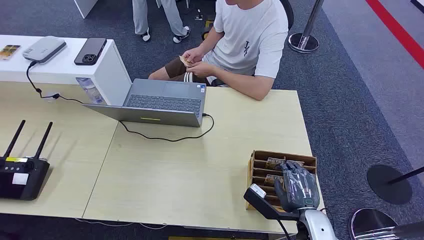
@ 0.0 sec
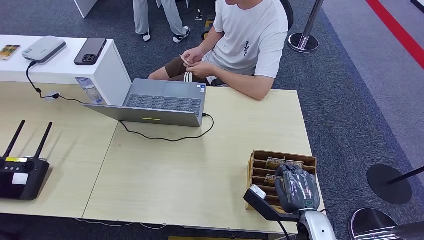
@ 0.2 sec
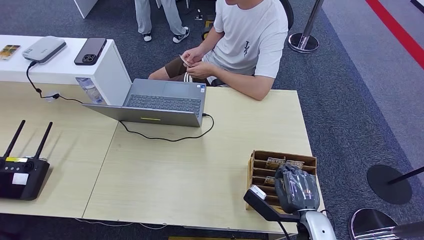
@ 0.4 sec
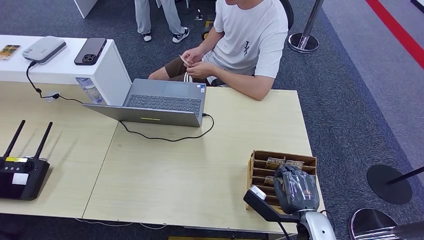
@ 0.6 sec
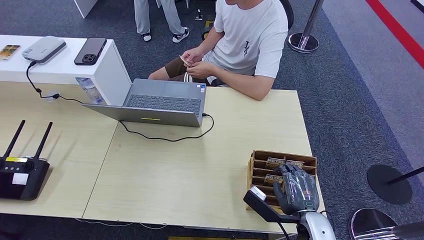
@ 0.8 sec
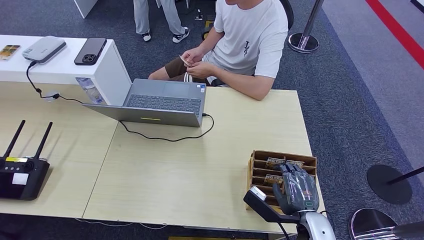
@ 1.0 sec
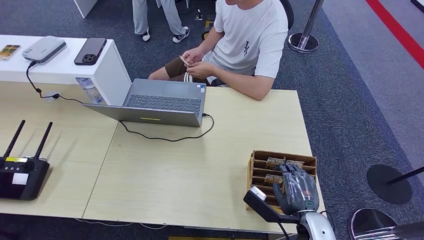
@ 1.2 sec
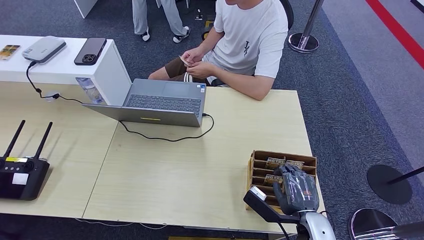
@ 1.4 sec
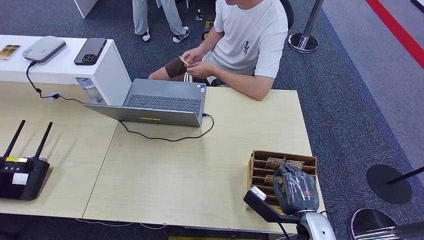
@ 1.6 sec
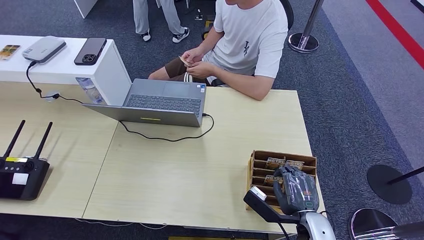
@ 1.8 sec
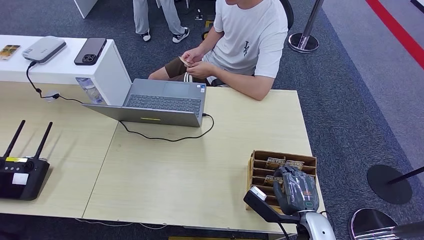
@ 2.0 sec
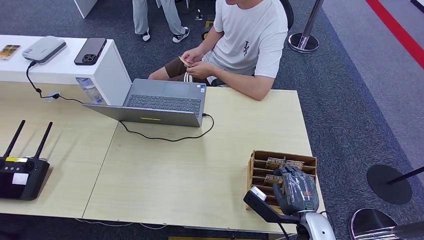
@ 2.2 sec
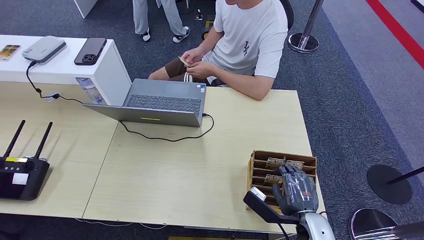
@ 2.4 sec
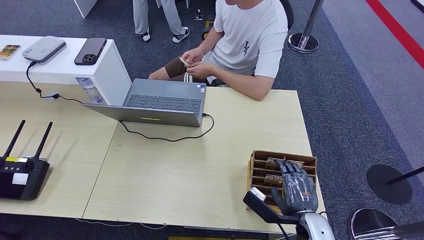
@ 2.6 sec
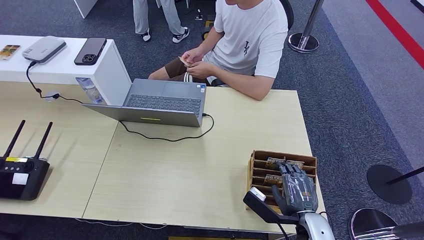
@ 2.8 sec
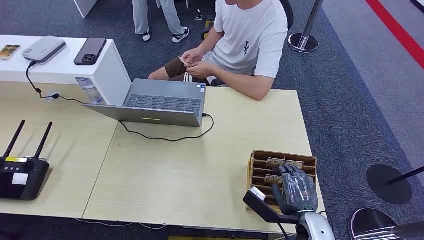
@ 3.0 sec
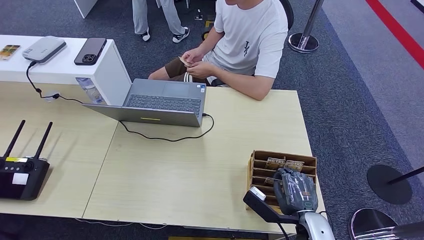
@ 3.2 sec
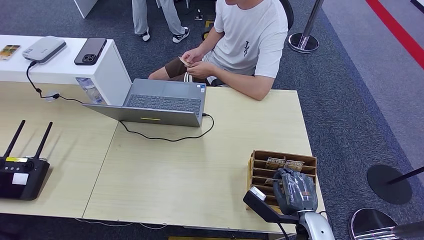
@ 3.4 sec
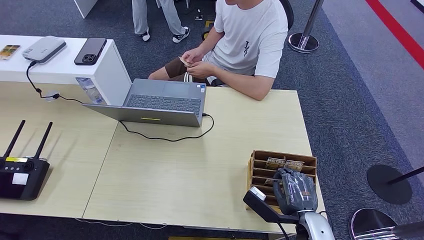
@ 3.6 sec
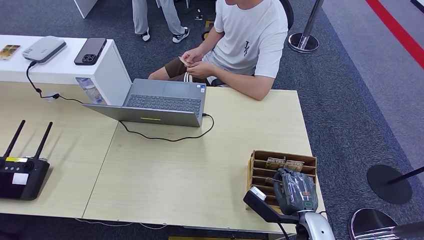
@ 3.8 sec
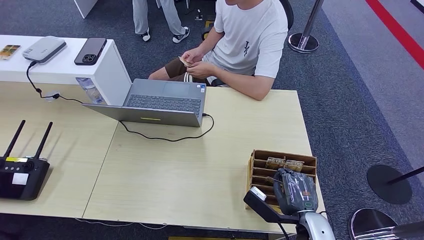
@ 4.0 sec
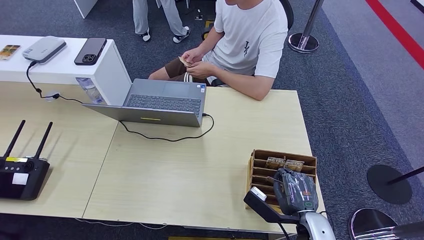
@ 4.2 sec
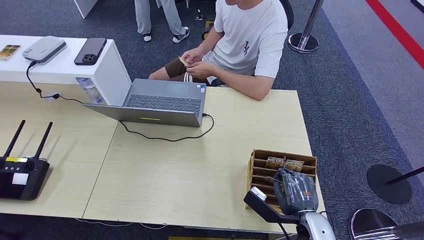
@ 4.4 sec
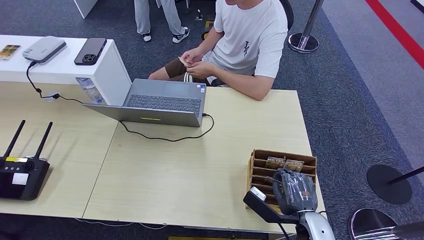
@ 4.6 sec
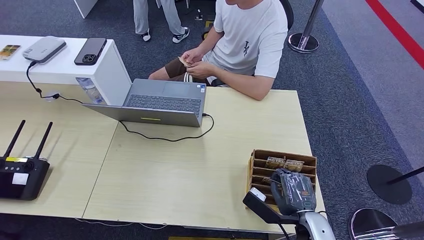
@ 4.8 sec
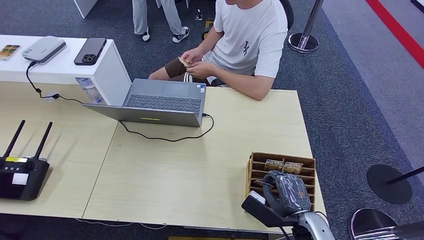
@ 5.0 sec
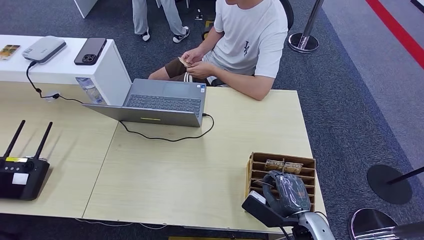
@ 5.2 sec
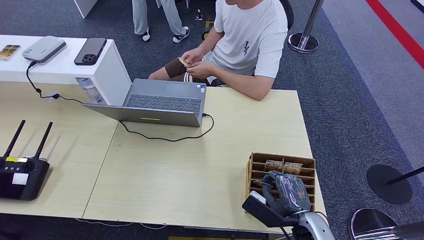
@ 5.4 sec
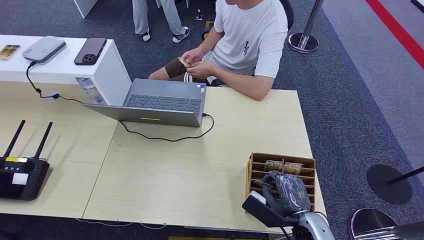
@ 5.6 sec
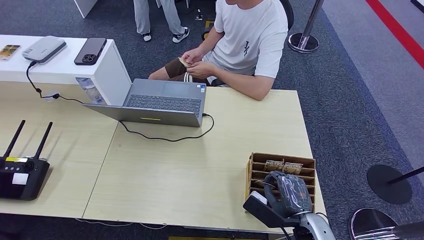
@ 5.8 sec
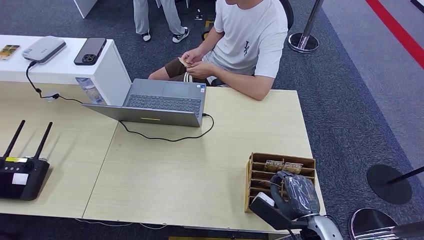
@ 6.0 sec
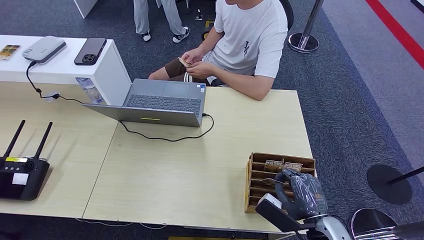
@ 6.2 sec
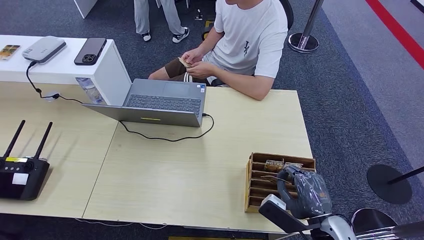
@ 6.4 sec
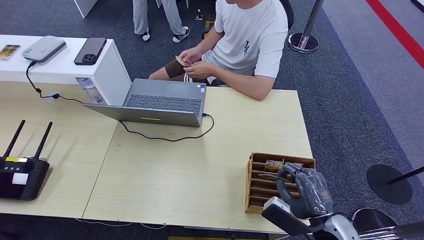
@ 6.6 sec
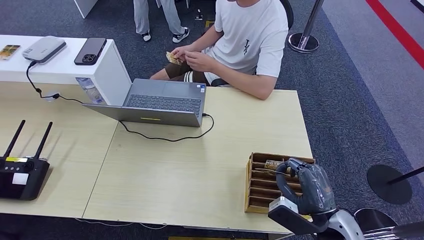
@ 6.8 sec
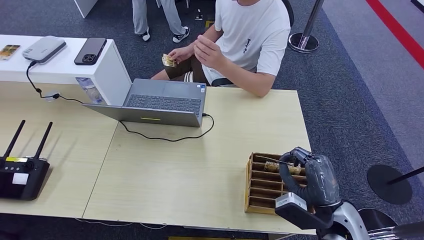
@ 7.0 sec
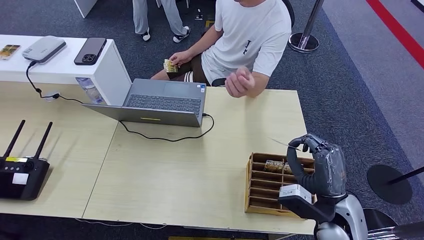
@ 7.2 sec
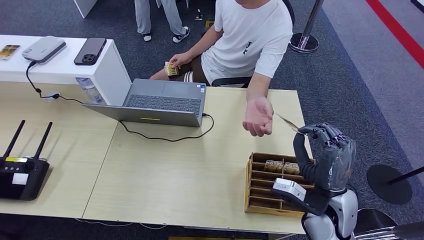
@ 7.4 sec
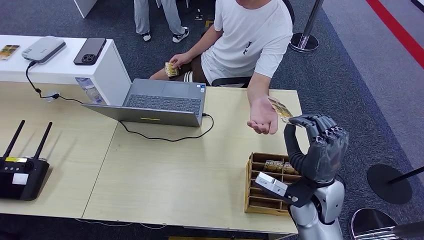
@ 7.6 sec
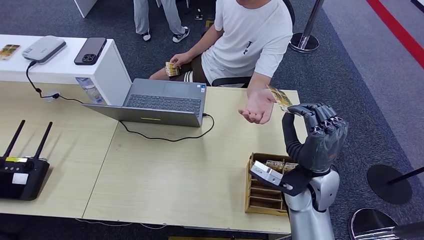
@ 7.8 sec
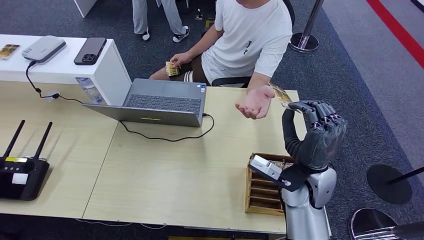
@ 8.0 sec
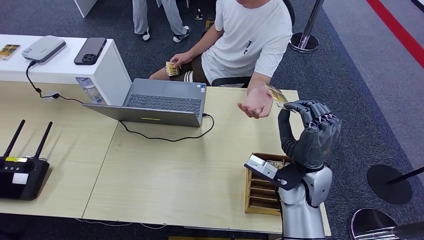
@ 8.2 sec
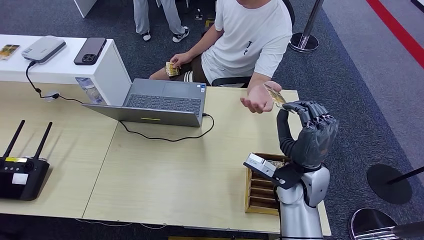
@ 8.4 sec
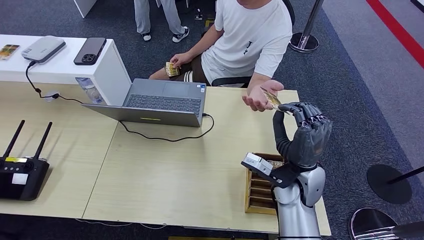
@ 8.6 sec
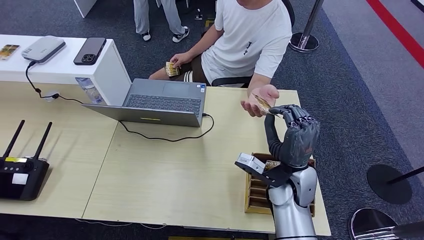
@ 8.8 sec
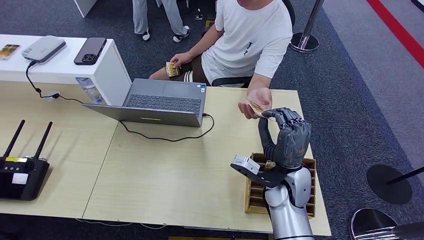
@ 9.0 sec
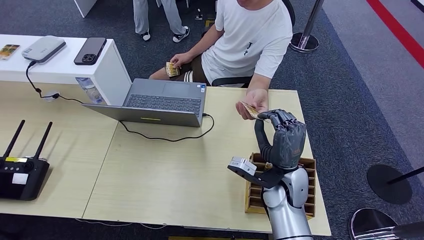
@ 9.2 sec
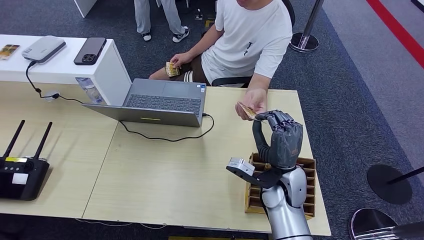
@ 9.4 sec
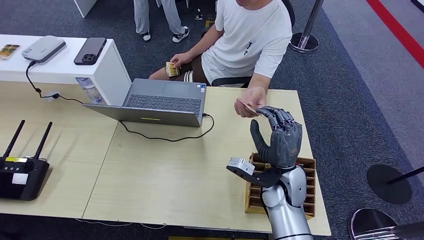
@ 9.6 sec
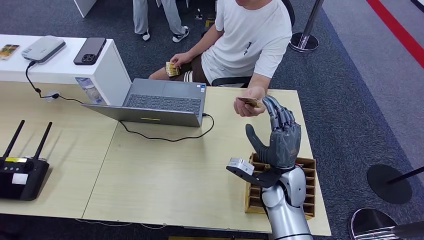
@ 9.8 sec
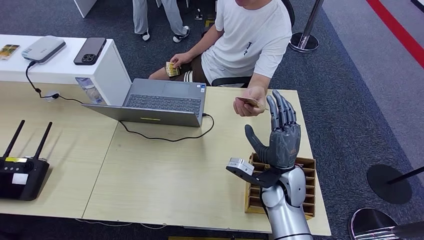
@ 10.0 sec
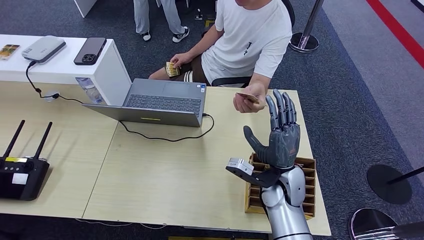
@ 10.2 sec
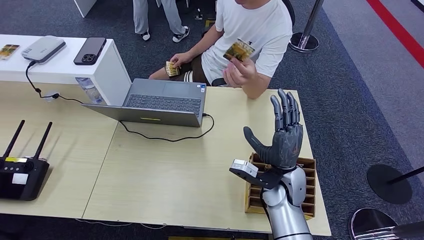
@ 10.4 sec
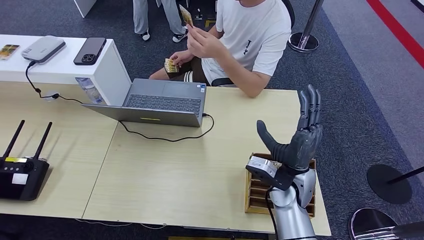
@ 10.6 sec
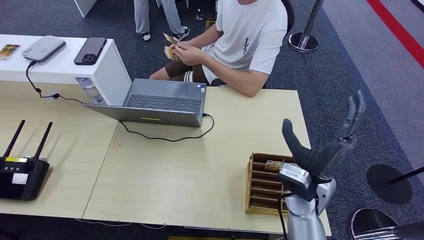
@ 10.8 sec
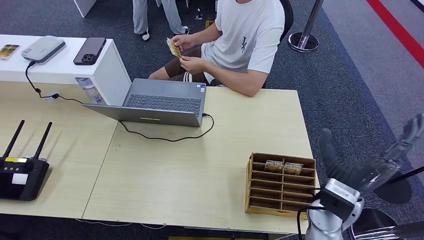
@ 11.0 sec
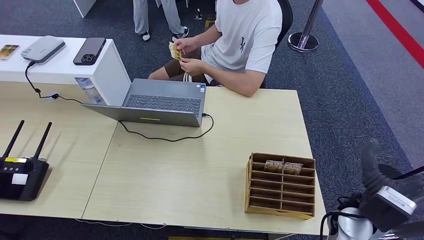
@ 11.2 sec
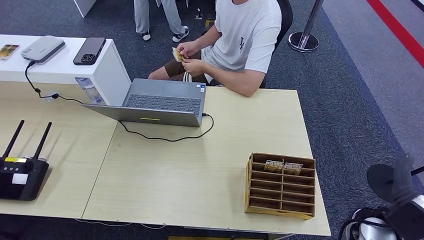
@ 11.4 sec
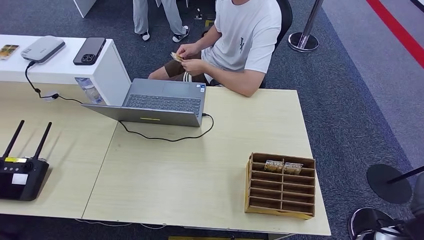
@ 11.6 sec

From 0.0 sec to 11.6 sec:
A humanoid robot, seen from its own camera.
Step, from 0.0 sec to 5.8 sec: Pick up the room card from the card holder.
Step, from 6.2 sec to 11.6 sec: Hand the room card to the target.
From 1.4 sec to 2.8 sec: Neither hand changes place.
From 2.8 sec to 5.8 sec: The hands make only small movements.
From 5.8 sec to 7.2 sec: The right hand heads upward, covering approximately 10 cm.
From 7.2 sec to 8.8 sec: The right hand is displaced forward and to the left by some 10 cm.
From 8.8 sec to 10.2 sec: The hands make only small movements.
From 10.2 sec to 11.6 sec: The right hand travels to the right and backward by roughly 25 cm.
